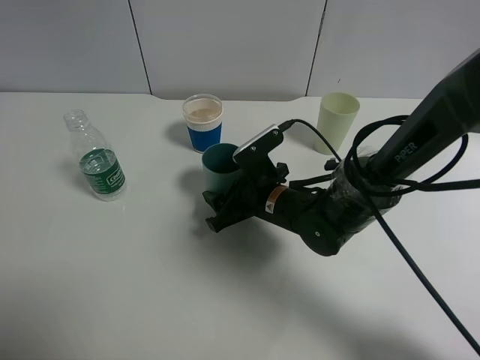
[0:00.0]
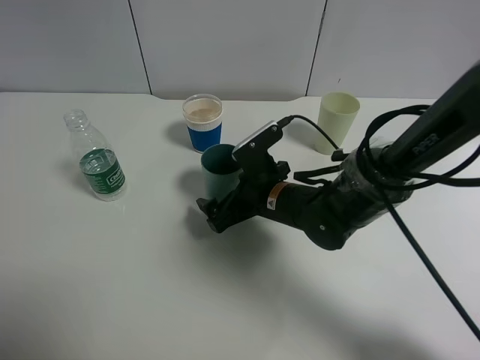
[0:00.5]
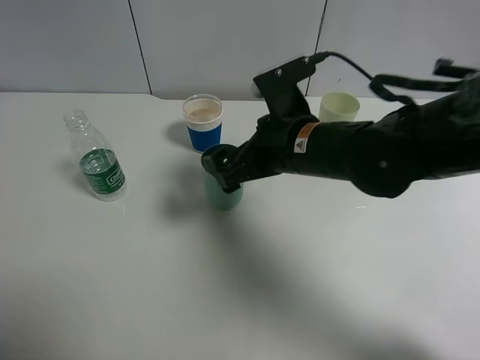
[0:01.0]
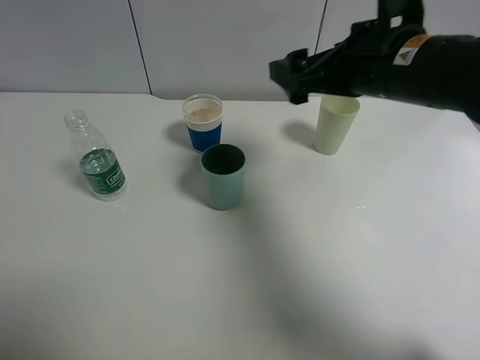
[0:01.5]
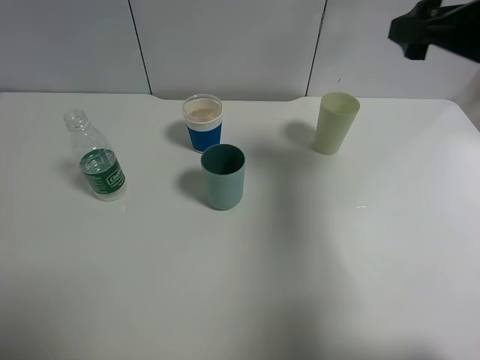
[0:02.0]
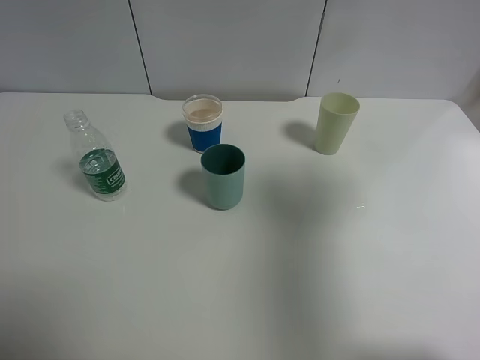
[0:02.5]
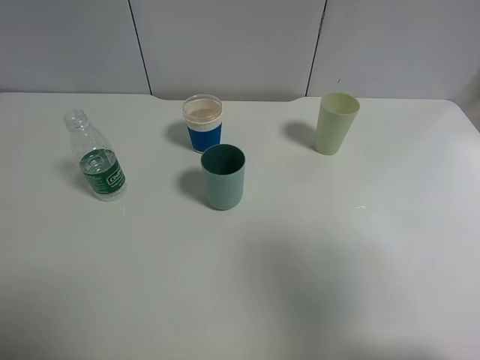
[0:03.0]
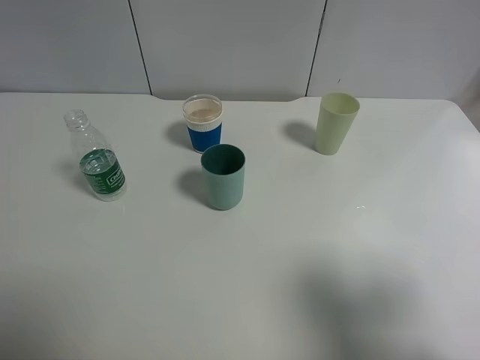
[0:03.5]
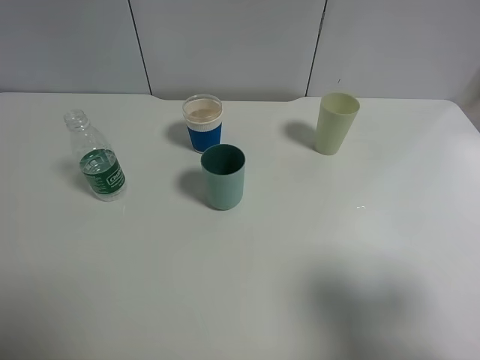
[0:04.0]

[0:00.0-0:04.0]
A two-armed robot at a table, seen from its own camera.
Task of the whole recording: use a clamp to hold the bottle of the drink, pour the beverage into a random cup, then clamp the cup containing the drink and pour the drink into another random cup.
0:00.0 to 0:02.0: The right gripper shifts roughly 30 cm upward and to the right, and opens.
0:02.0 to 0:04.0: The right gripper moves backward, about 25 cm.
